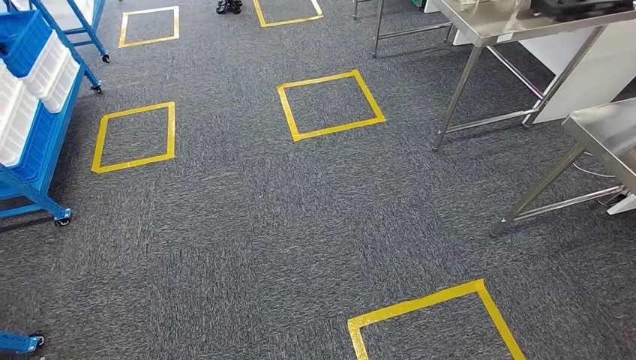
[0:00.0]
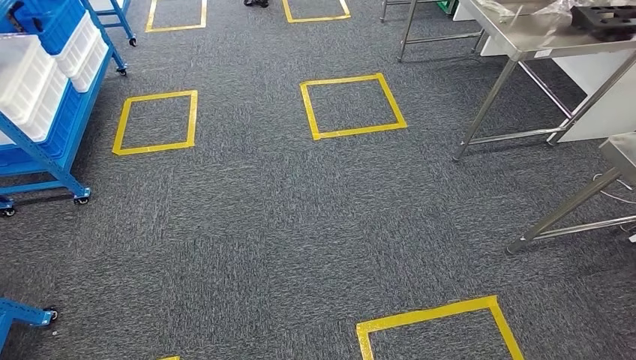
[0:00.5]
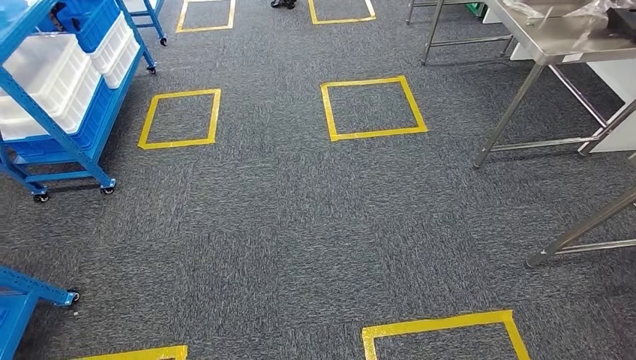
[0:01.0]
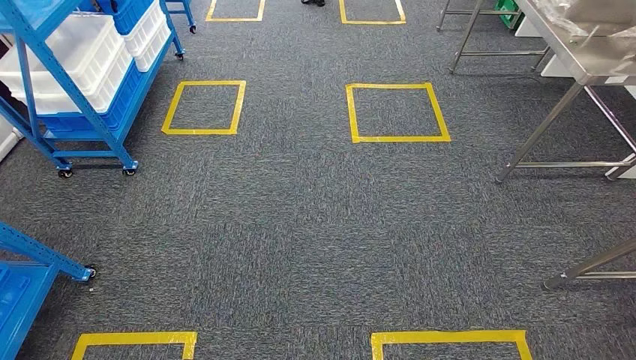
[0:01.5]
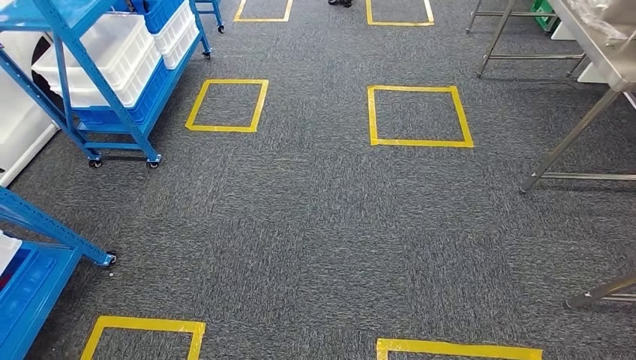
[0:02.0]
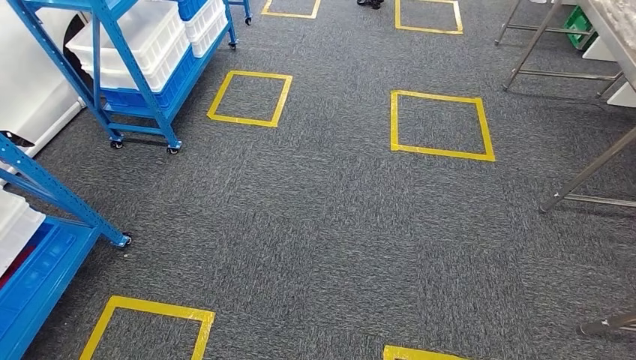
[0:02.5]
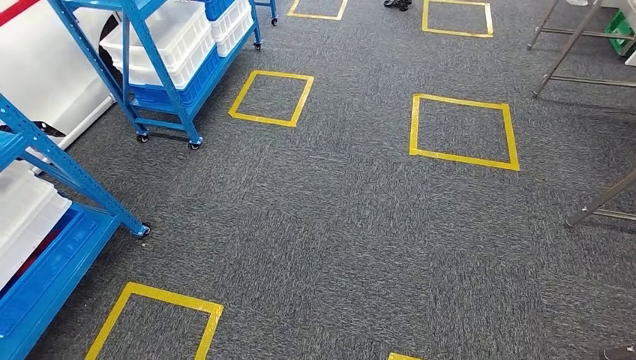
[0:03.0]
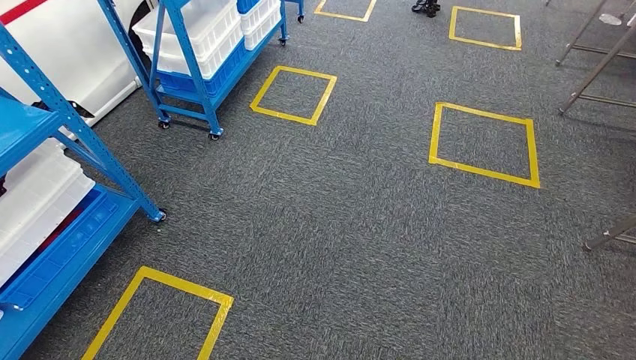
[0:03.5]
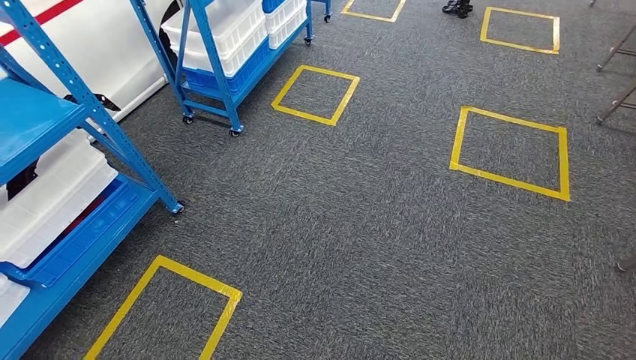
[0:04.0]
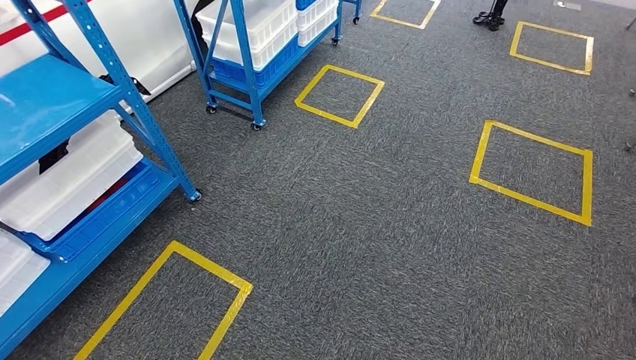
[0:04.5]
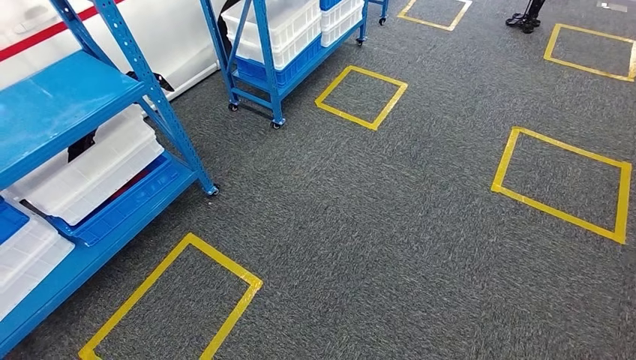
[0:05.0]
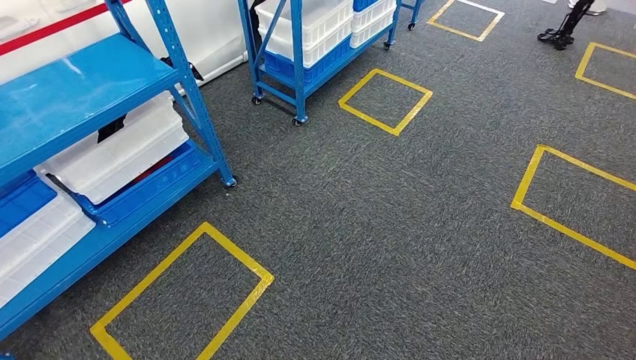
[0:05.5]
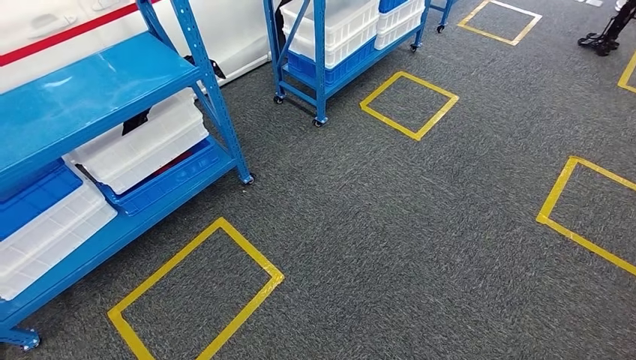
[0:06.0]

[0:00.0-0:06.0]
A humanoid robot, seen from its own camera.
Step, 0:00.0 to 0:06.0: Return to the initial position at the shelf.

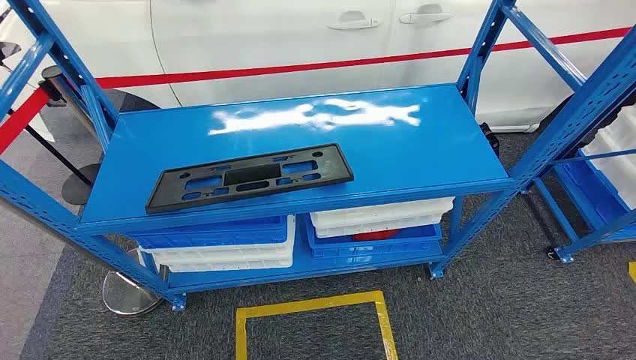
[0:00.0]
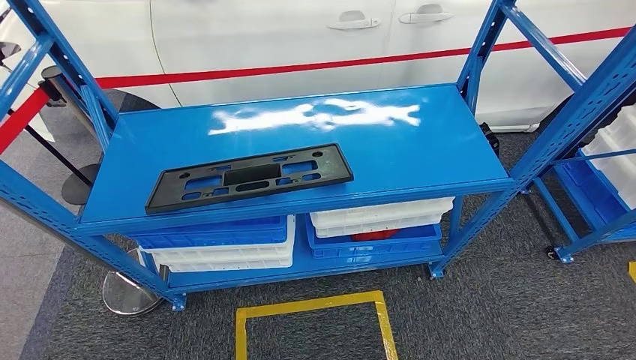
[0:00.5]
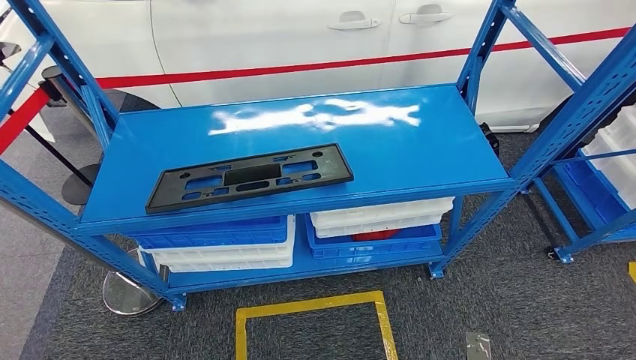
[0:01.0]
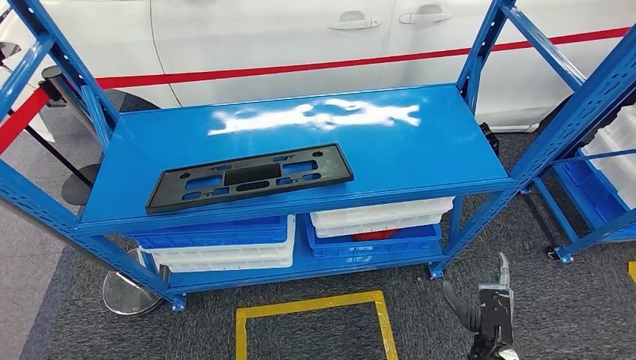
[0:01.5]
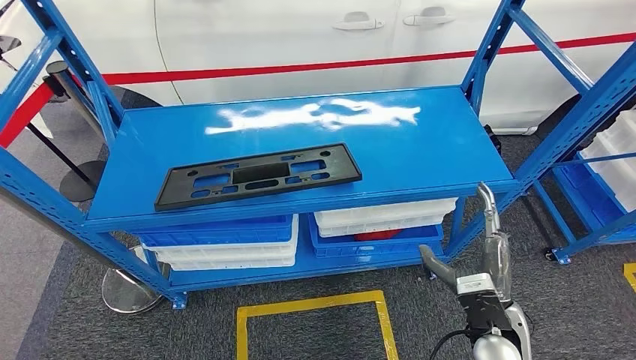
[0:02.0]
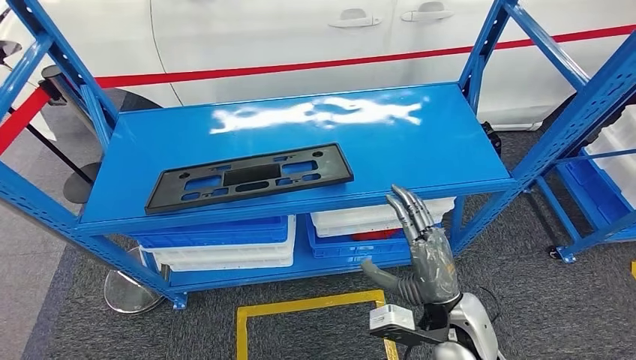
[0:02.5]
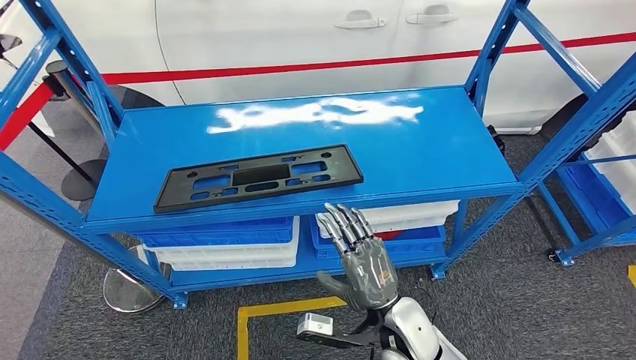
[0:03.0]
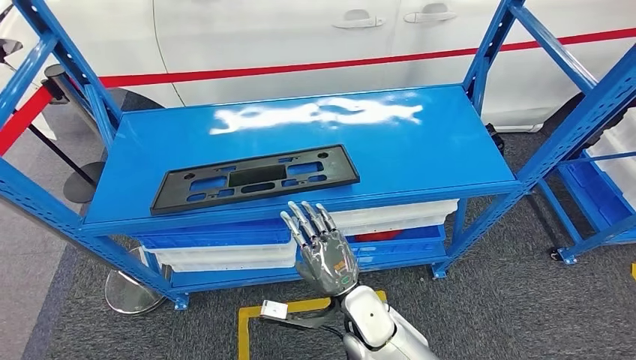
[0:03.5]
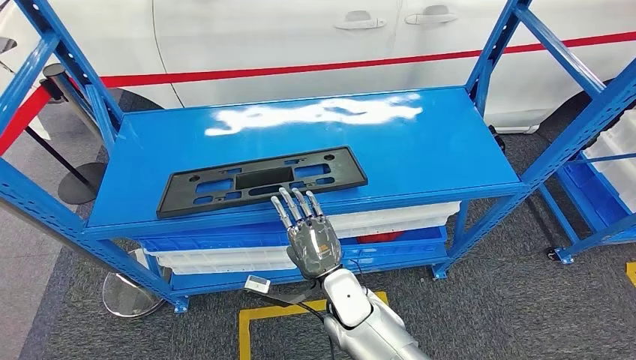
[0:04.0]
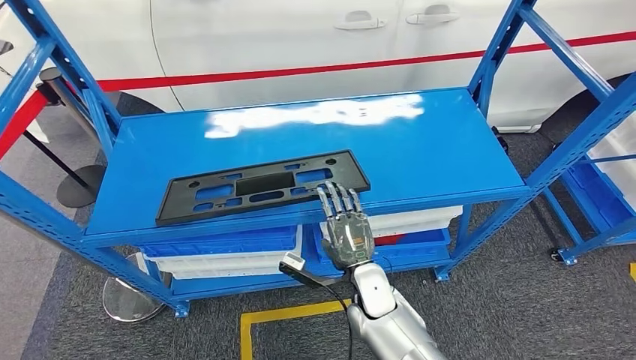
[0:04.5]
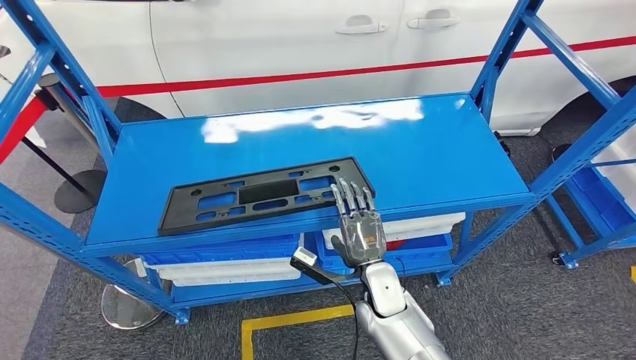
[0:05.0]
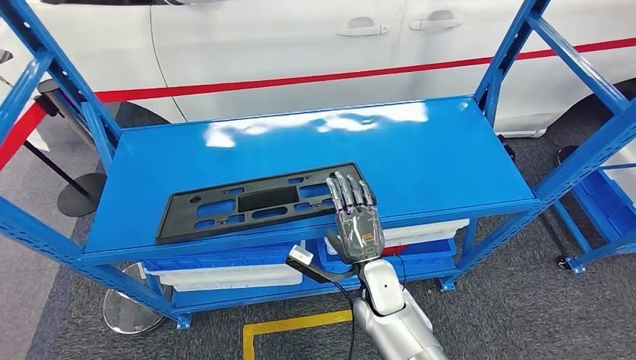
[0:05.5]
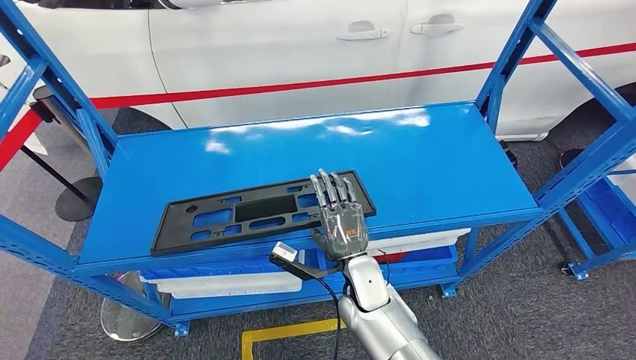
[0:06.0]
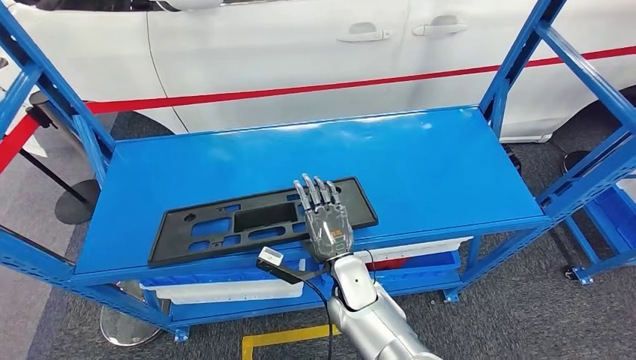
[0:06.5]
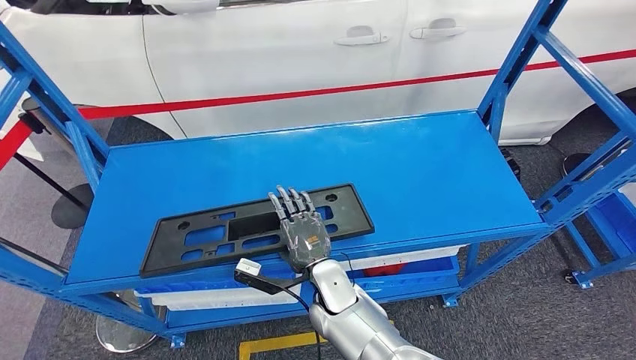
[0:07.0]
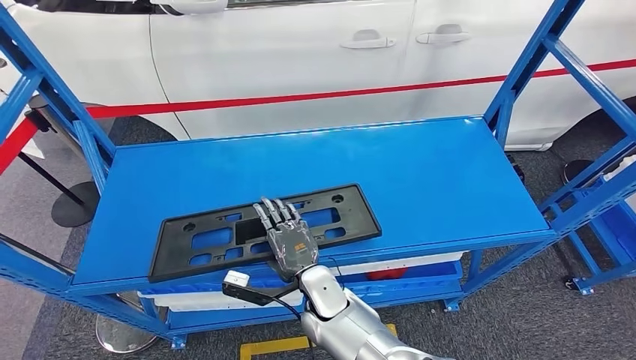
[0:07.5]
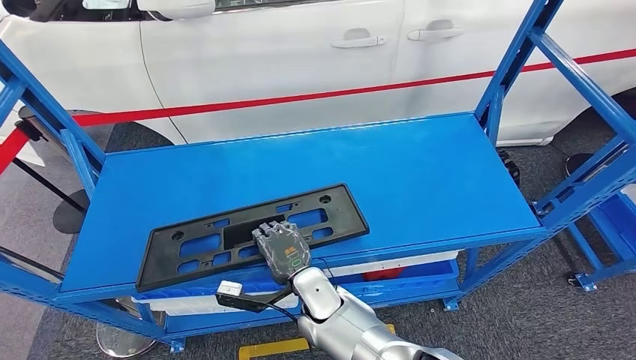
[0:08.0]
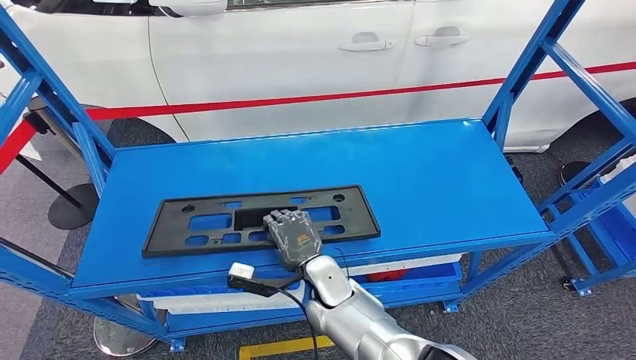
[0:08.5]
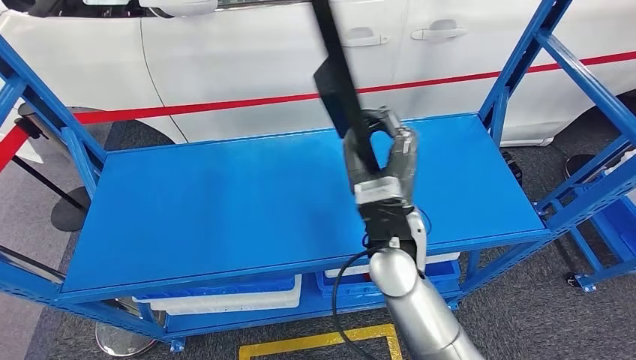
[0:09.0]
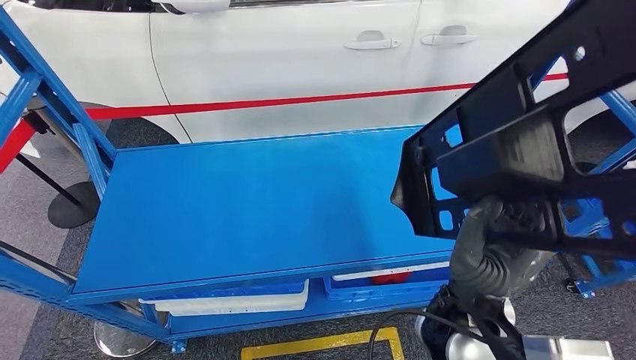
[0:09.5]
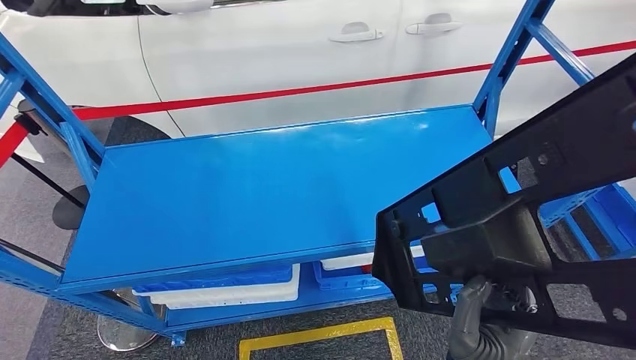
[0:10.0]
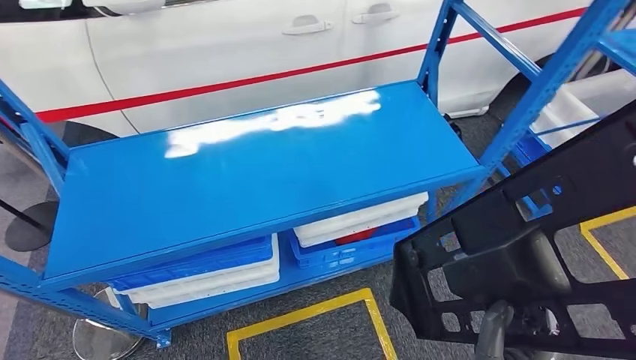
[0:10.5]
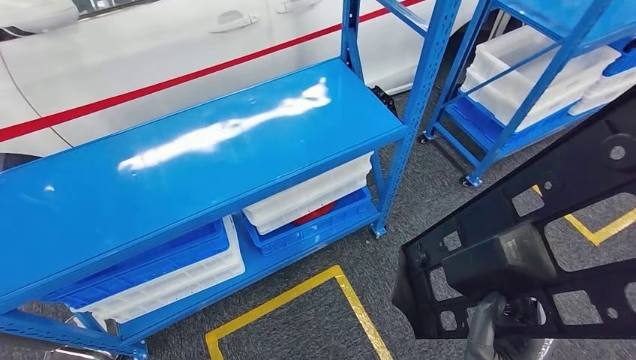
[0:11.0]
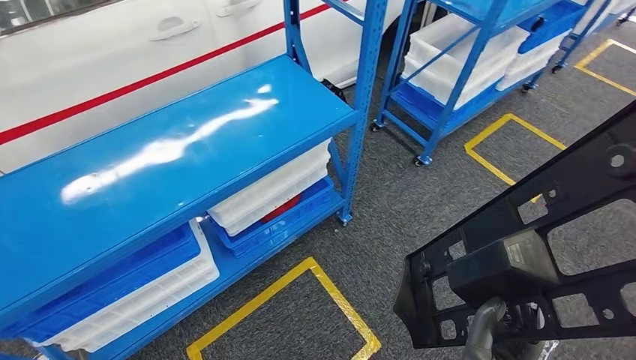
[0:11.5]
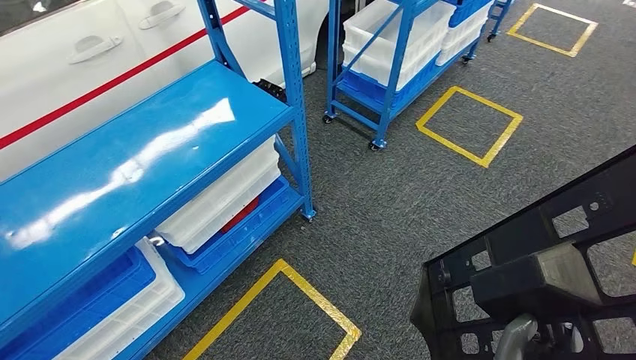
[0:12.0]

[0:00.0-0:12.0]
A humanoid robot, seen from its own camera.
Step, 0:00.0 to 0:10.0: Pick up the large material from the shelf.

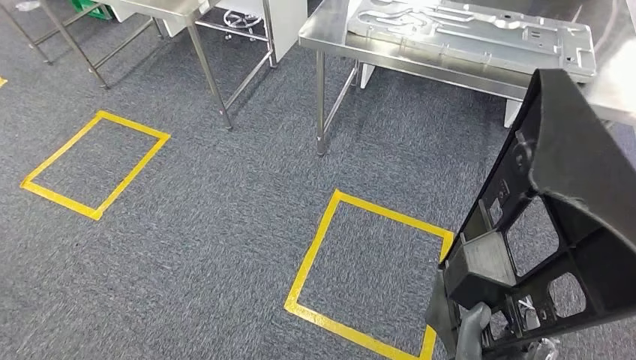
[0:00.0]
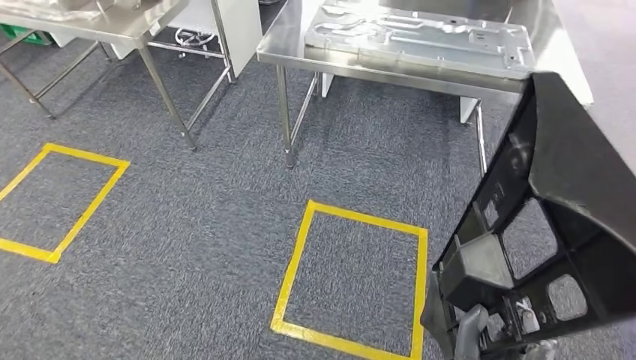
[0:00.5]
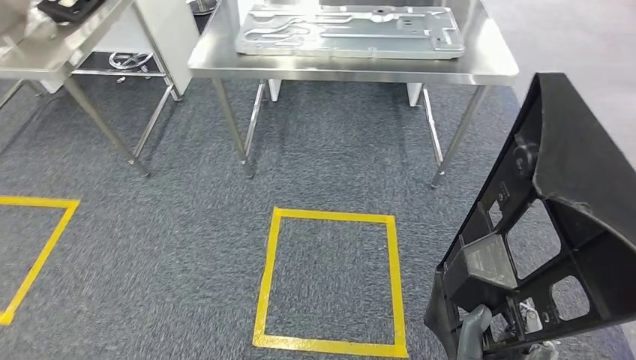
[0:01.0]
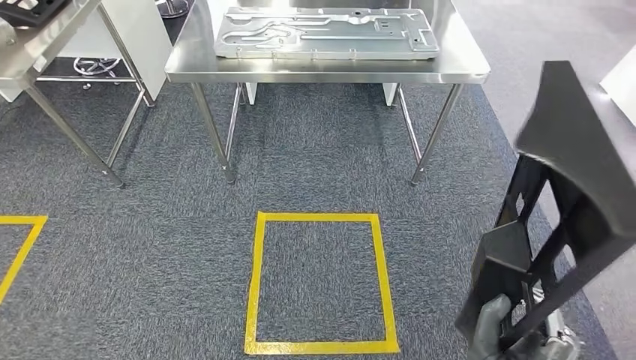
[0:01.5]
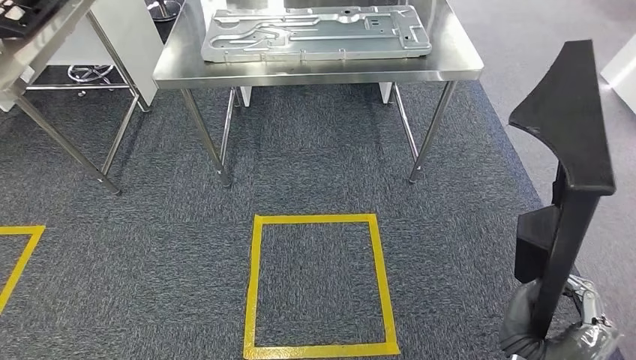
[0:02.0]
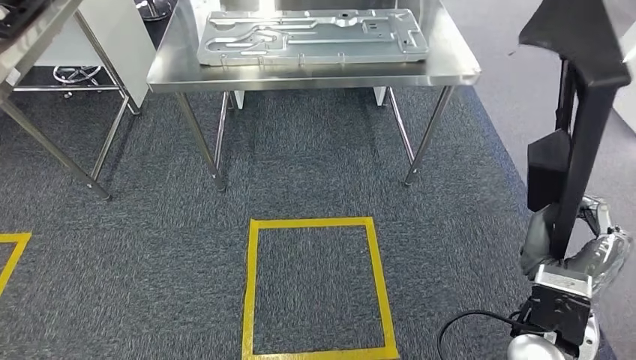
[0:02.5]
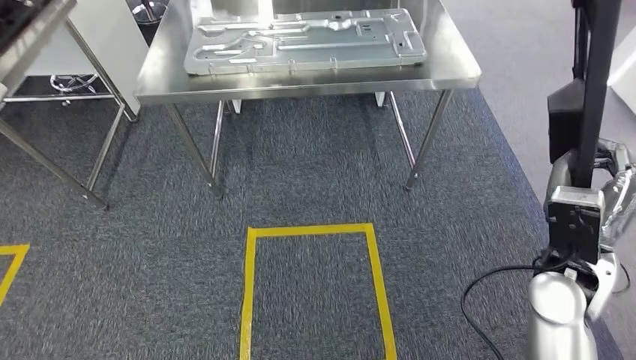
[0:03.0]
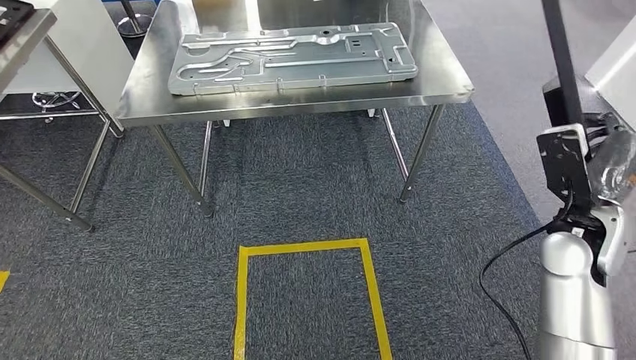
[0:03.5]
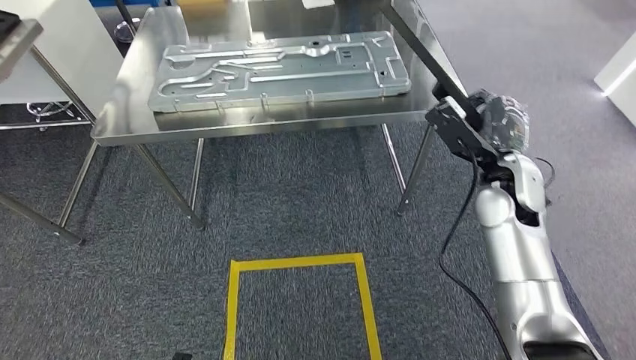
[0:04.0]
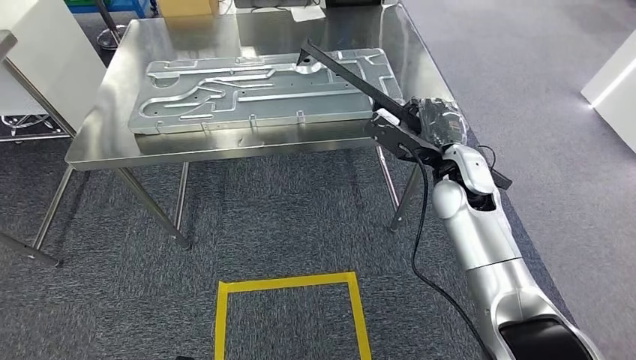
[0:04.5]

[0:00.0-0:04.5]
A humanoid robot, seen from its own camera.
Step, 0:00.0 to 0:04.5: Move the large material to the workbench.
